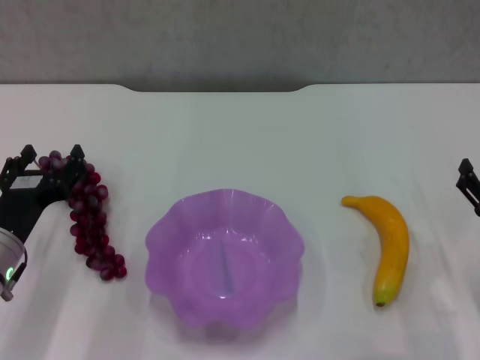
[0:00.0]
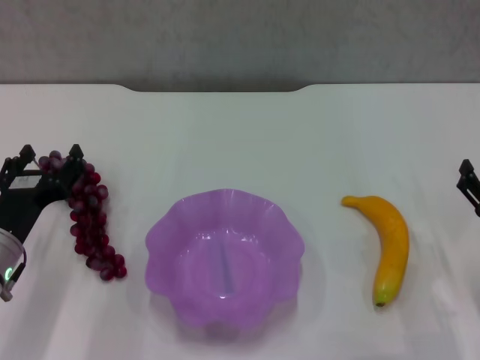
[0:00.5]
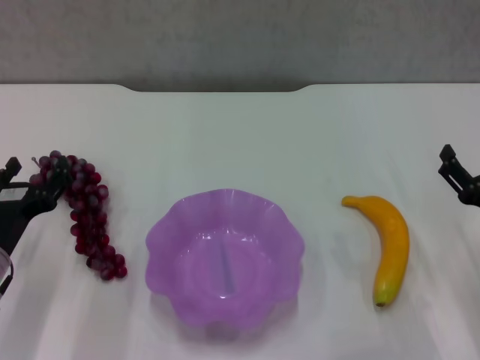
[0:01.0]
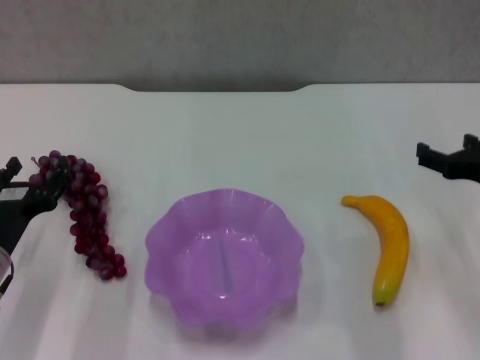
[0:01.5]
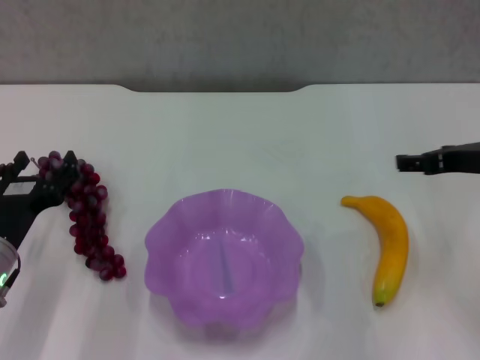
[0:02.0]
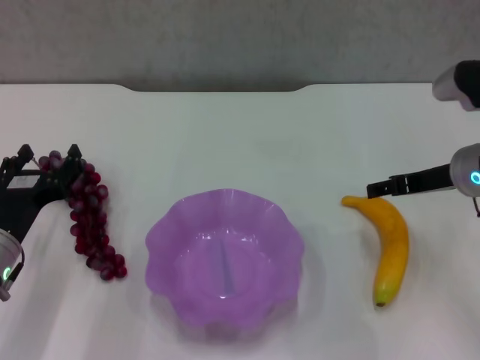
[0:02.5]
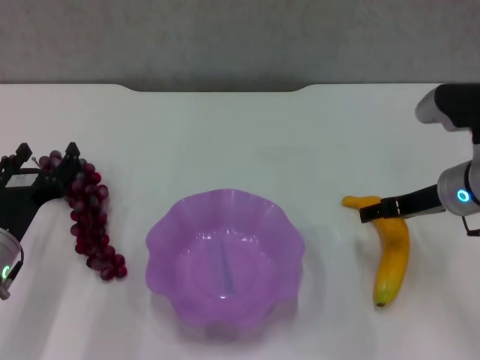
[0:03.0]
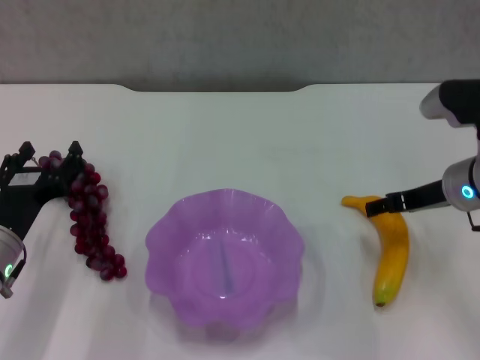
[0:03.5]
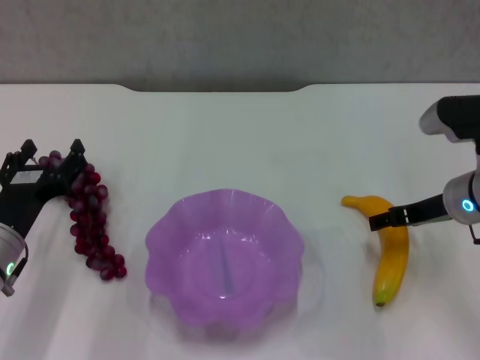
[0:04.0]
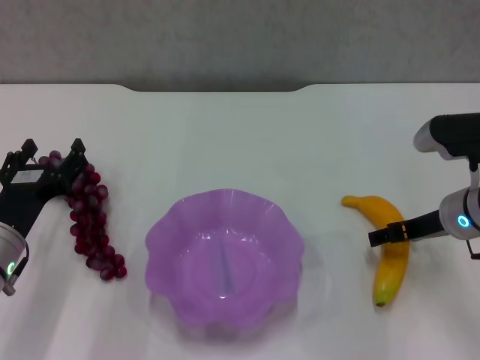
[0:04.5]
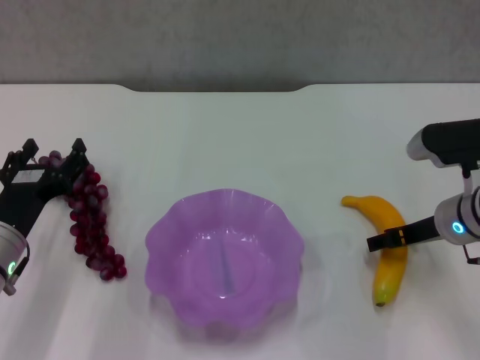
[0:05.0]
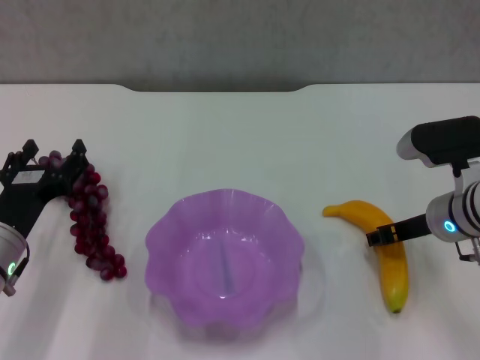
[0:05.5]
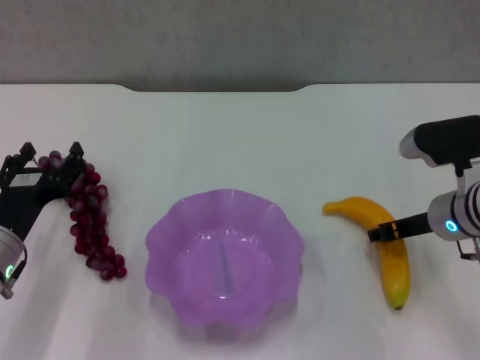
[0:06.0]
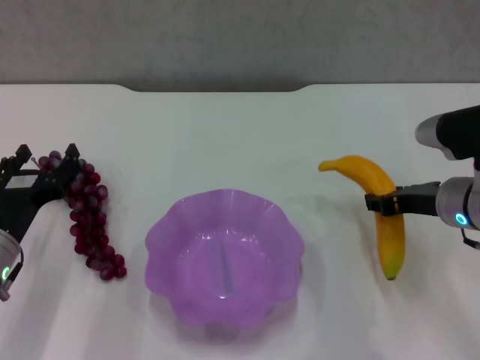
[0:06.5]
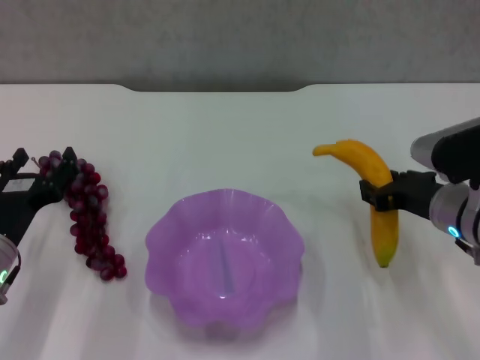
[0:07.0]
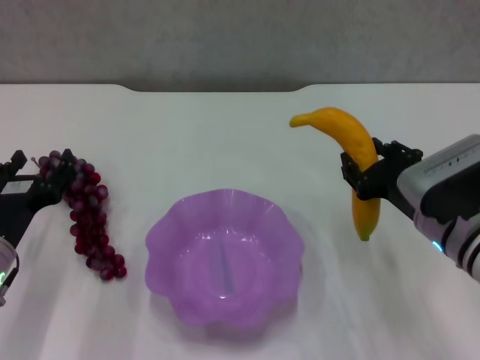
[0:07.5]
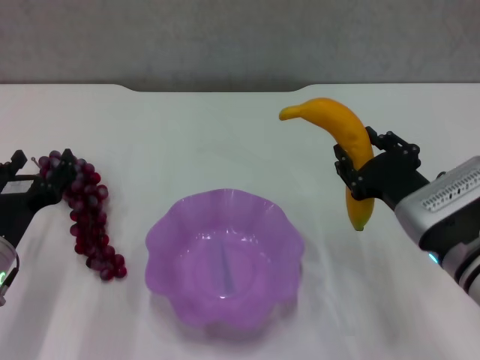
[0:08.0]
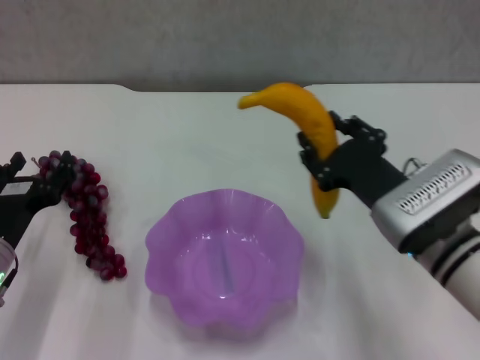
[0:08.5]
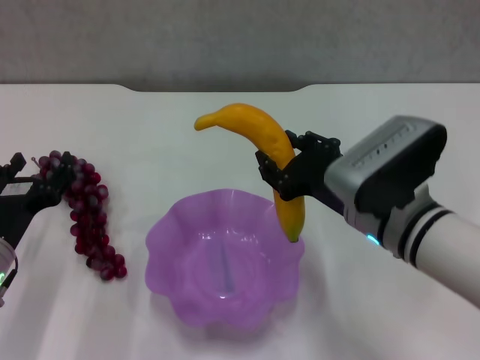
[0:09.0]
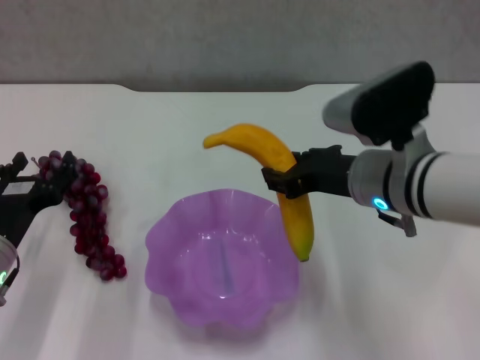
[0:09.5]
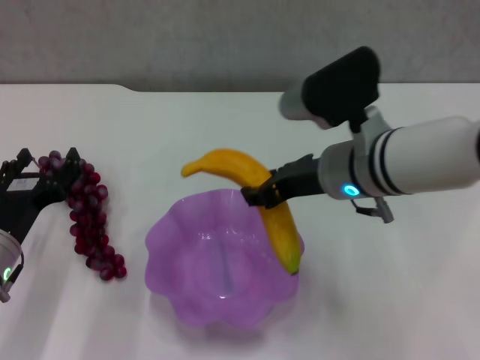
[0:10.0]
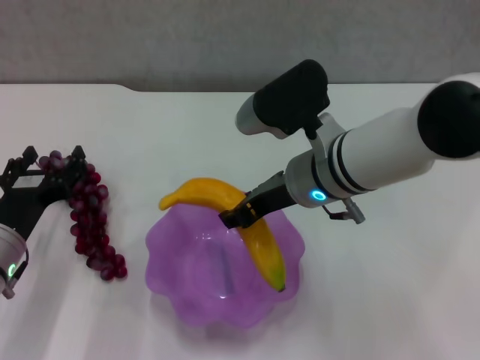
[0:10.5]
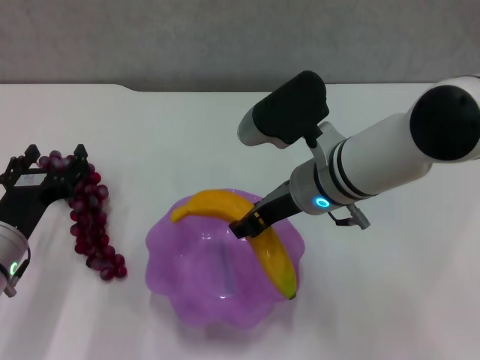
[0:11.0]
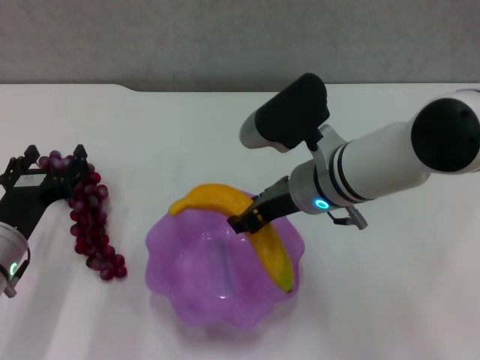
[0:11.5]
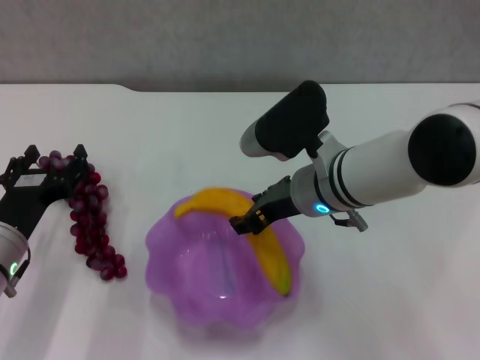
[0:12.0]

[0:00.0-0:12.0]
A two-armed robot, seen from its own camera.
Step, 0.0 to 5.5 s: Grasp the banana with right gripper.
0.0 to 2.0 s: The right gripper goes some 15 cm upward and forward.
2.0 to 4.0 s: The right gripper goes some 5 cm downward.
4.0 to 6.0 s: The right gripper closes up.
6.0 to 8.0 s: The right gripper shifts approximately 5 cm backward.
8.0 to 10.0 s: The right gripper travels to the left, upward and forward by some 15 cm.
10.0 to 12.0 s: The grippers stay close to where they were, moving slightly.

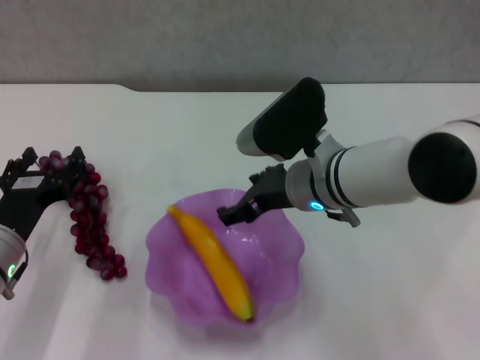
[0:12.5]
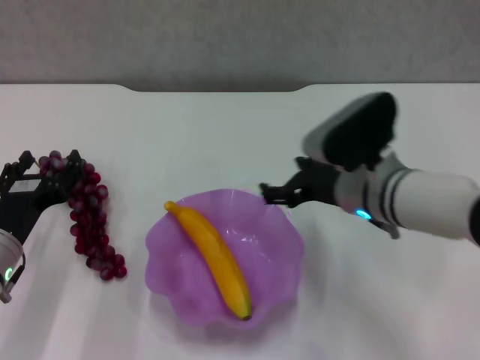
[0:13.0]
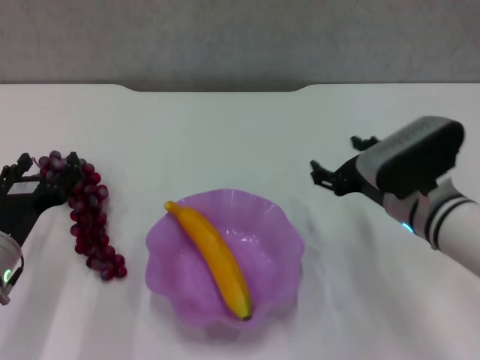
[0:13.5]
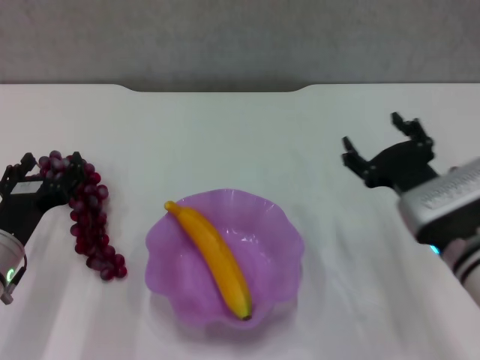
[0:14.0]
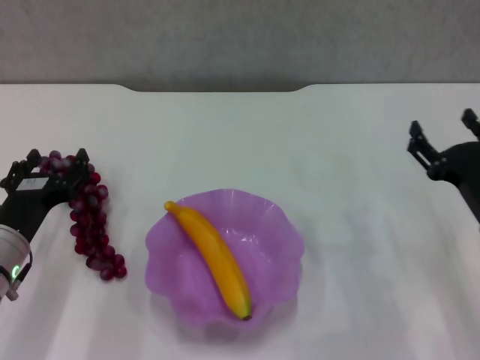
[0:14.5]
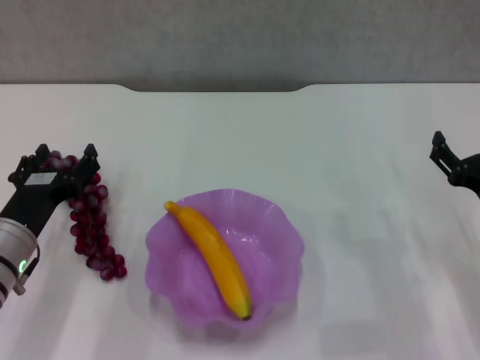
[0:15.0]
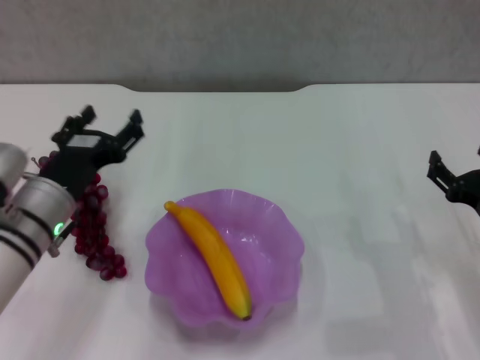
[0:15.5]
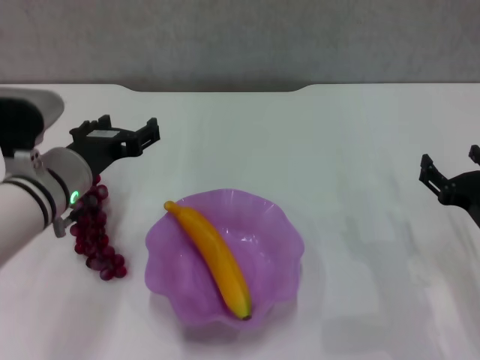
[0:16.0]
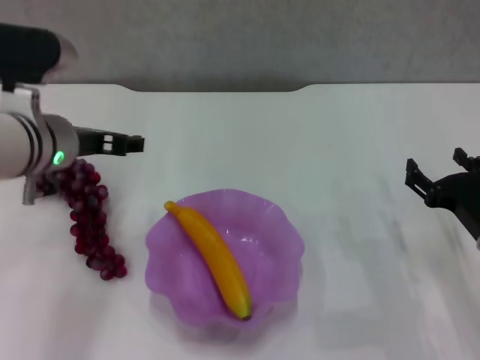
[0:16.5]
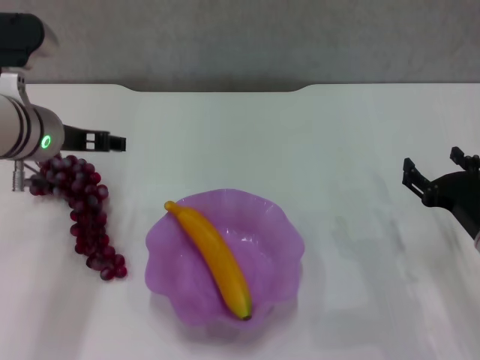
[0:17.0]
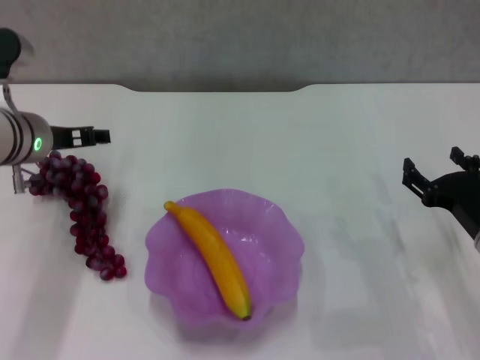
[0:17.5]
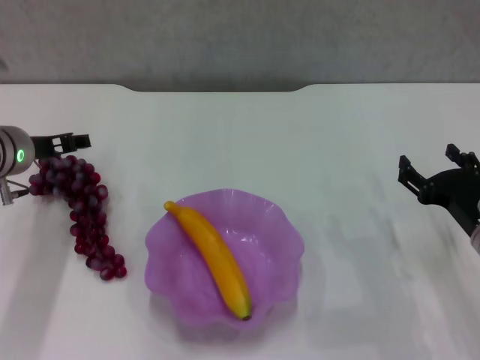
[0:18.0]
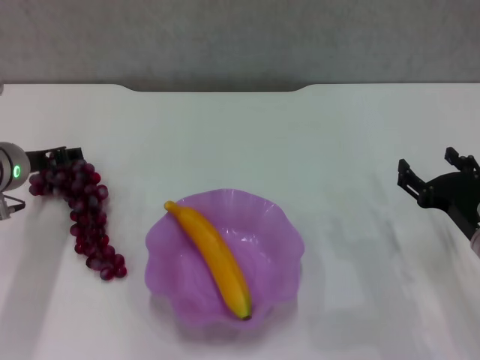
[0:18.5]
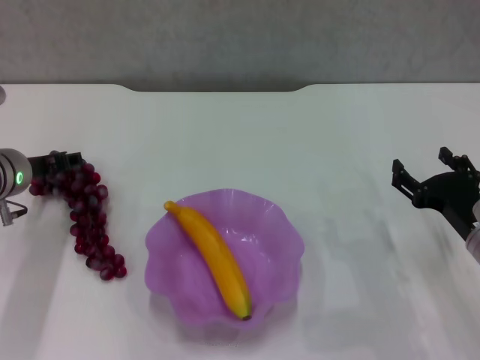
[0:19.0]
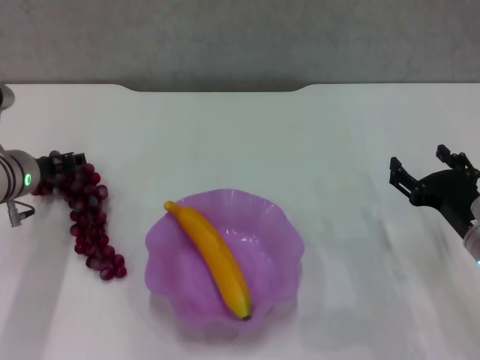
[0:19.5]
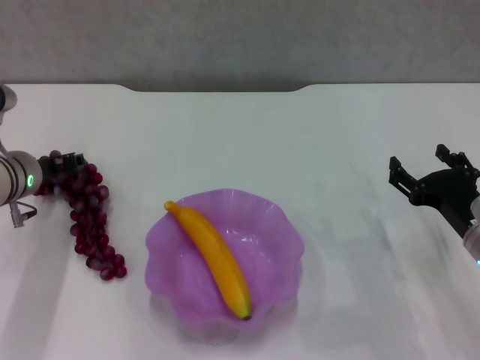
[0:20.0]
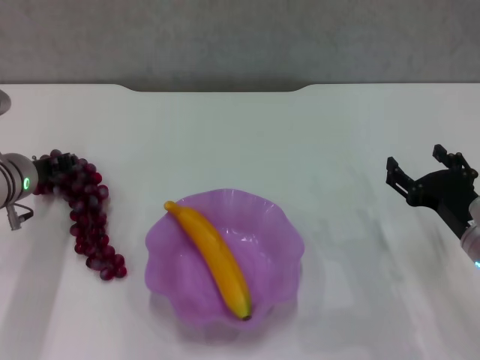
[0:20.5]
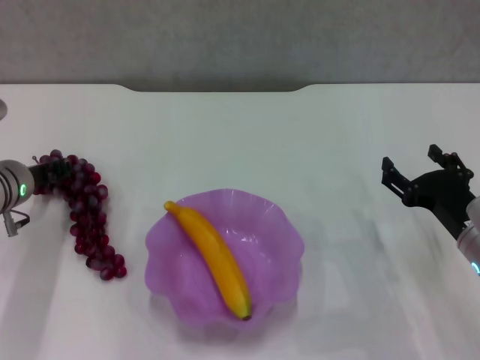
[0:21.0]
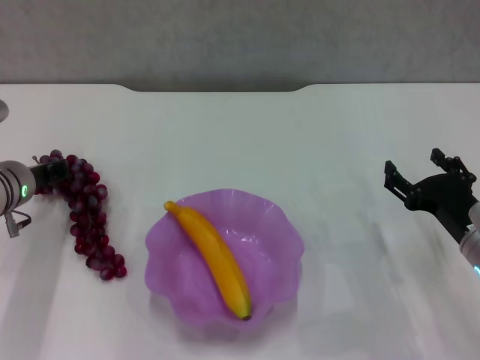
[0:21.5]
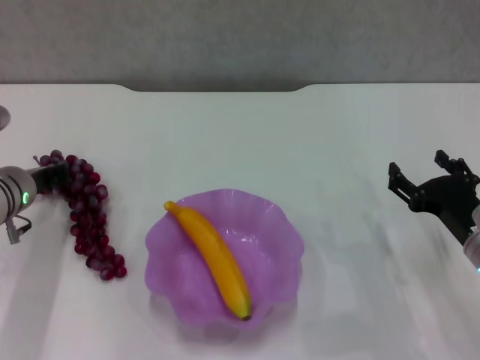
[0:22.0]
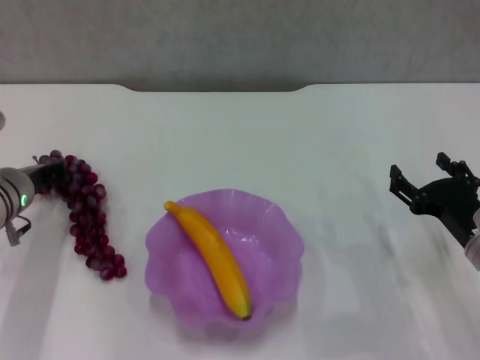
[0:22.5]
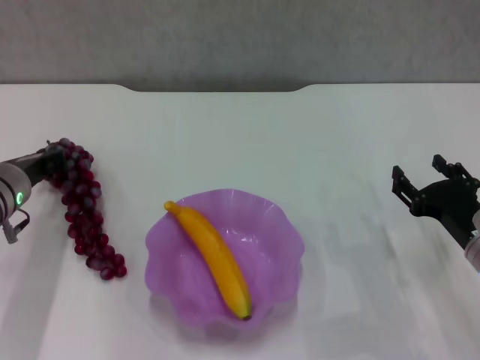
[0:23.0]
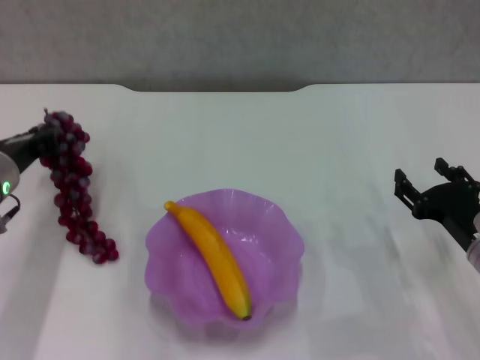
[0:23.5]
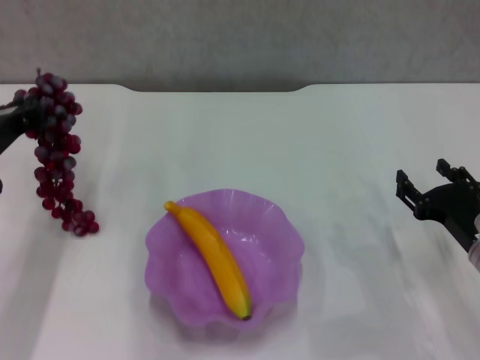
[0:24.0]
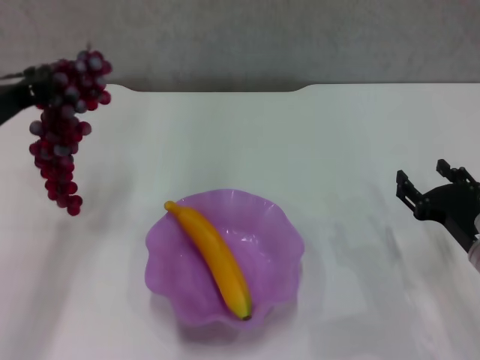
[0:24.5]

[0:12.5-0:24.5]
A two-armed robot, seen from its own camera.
Step, 12.5 to 21.5 s: Grasp the grape with left gripper.
12.5 to 14.5 s: The right gripper travels to the right by some 20 cm.
14.5 to 16.5 s: The left gripper moves upward, forward and to the right, some 15 cm.
16.5 to 18.5 s: The left gripper is displaced to the left and downward by some 10 cm.
18.5 to 20.5 s: The left gripper closes.
20.5 to 22.5 s: The left gripper closes its fingers.
22.5 to 24.5 s: The left gripper is displaced upward and backward by about 15 cm.

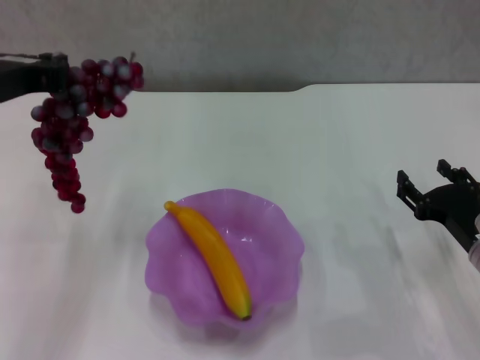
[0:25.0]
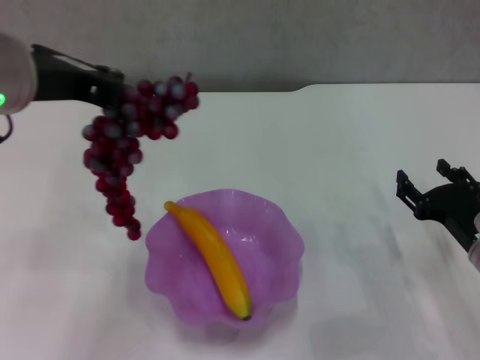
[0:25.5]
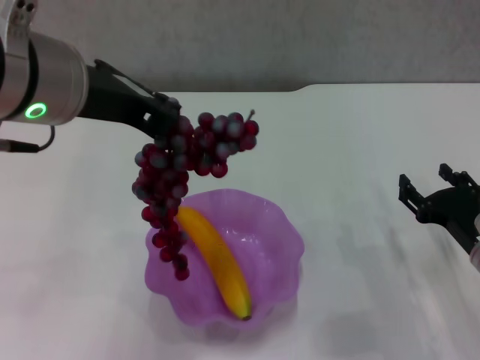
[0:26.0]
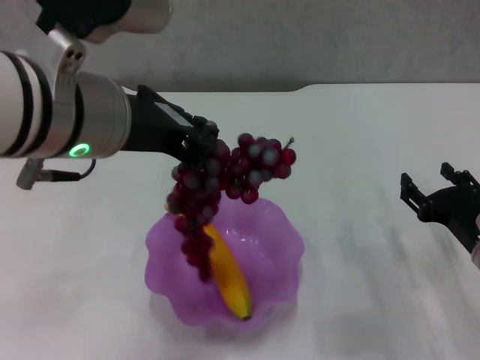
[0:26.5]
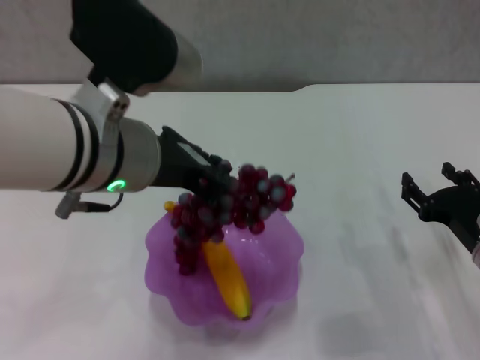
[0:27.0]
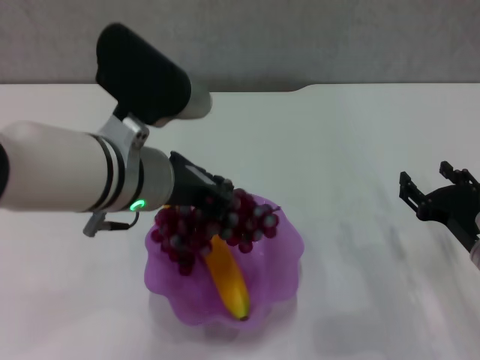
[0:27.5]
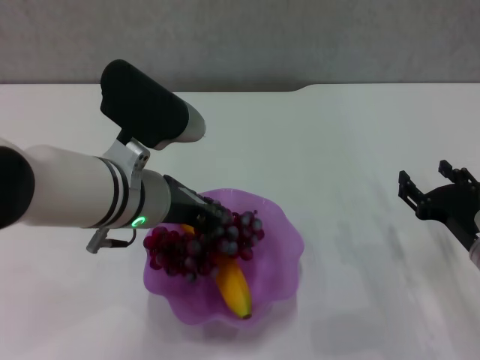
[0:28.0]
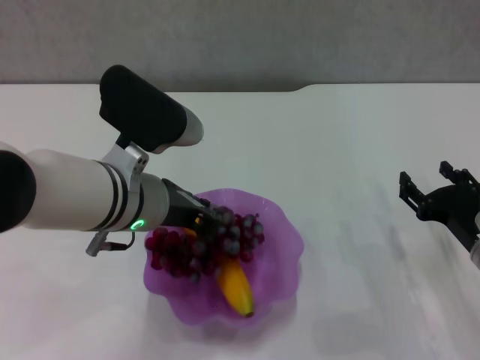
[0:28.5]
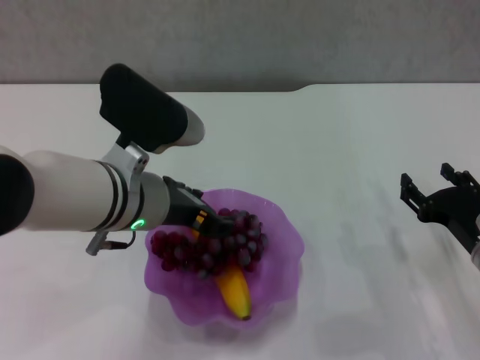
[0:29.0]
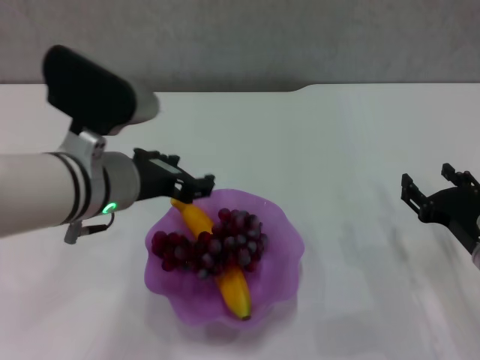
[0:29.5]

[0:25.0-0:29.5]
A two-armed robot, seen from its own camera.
Step, 25.0 to 29.0 s: Place the grape in the purple plate with left gripper.
25.0 to 27.0 s: The left gripper is displaced to the right by approximately 10 cm.
27.0 to 29.5 s: The left gripper travels downward by approximately 5 cm, and opens up.
